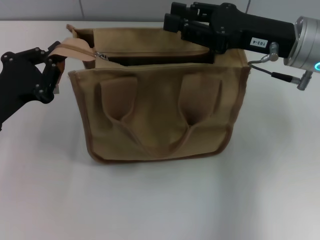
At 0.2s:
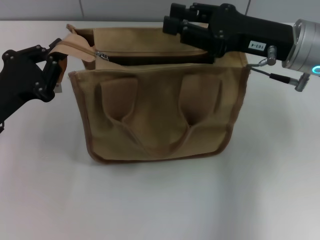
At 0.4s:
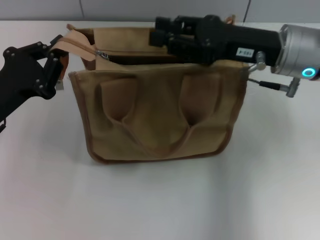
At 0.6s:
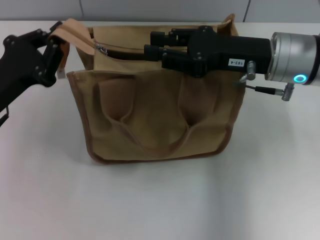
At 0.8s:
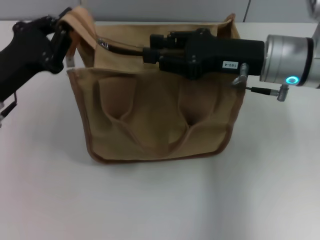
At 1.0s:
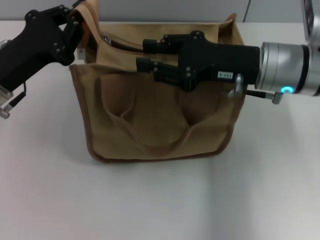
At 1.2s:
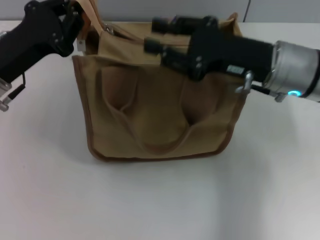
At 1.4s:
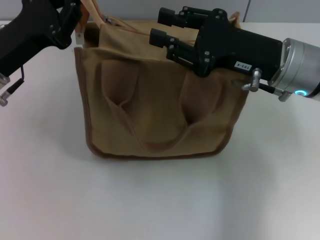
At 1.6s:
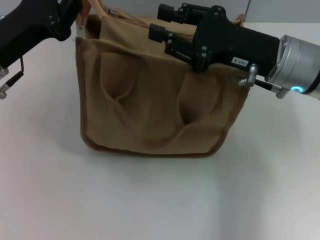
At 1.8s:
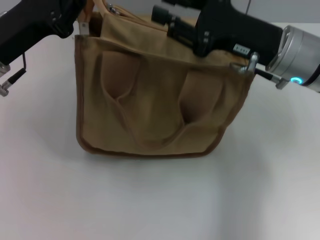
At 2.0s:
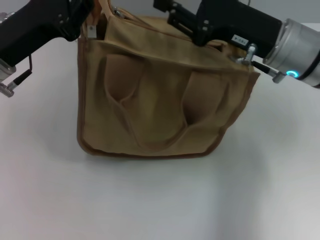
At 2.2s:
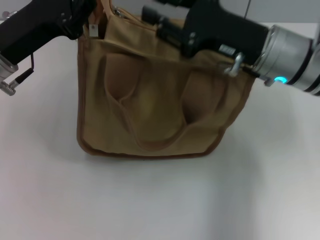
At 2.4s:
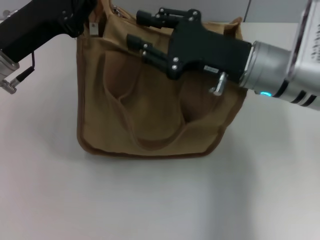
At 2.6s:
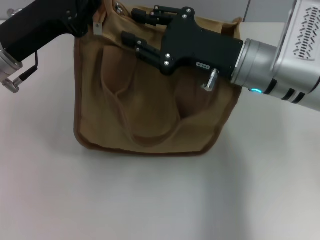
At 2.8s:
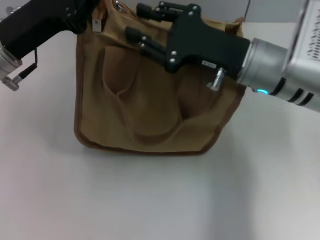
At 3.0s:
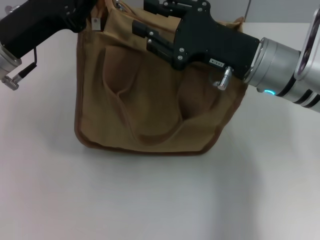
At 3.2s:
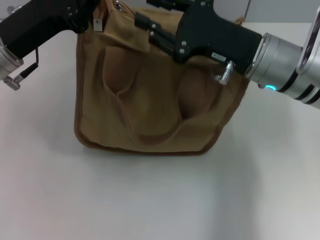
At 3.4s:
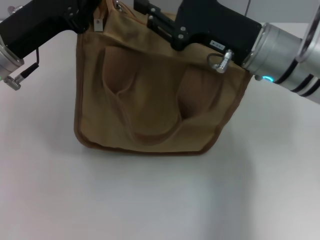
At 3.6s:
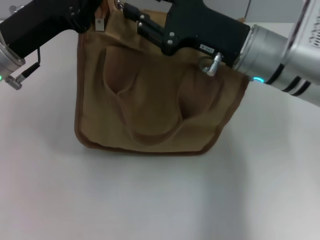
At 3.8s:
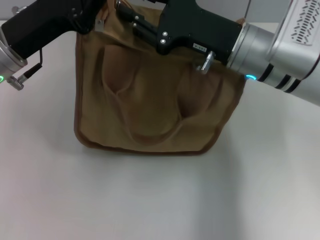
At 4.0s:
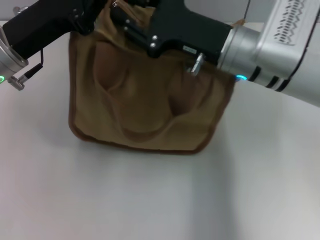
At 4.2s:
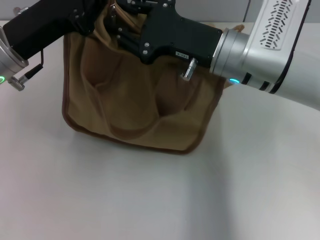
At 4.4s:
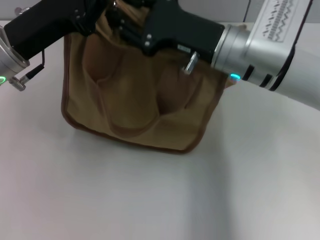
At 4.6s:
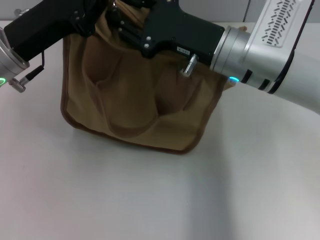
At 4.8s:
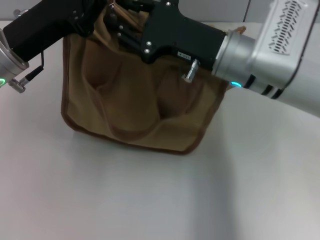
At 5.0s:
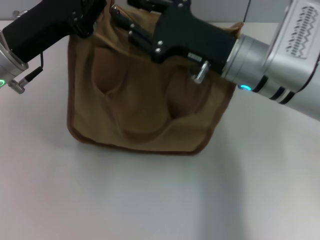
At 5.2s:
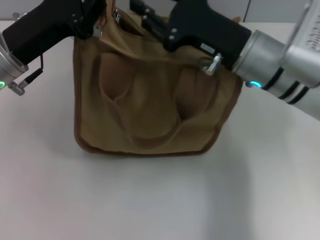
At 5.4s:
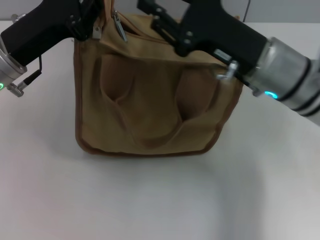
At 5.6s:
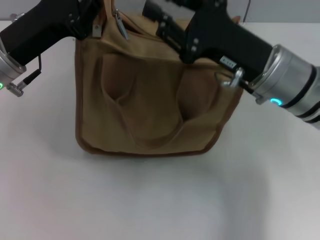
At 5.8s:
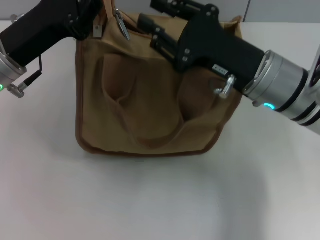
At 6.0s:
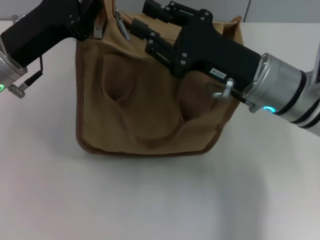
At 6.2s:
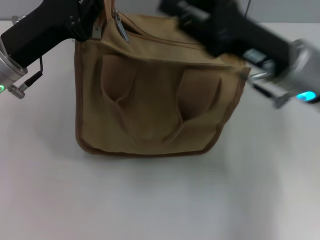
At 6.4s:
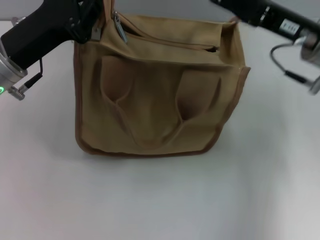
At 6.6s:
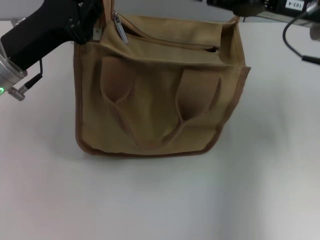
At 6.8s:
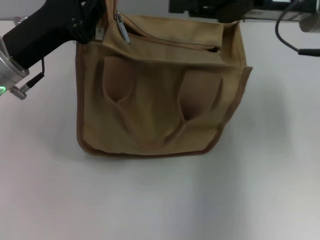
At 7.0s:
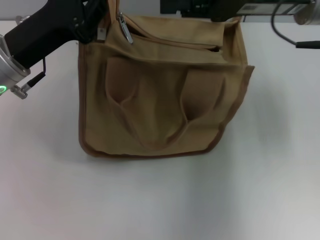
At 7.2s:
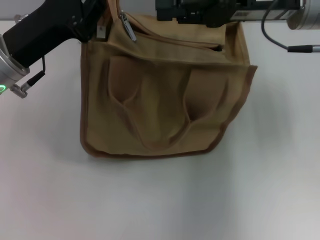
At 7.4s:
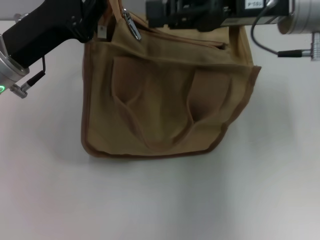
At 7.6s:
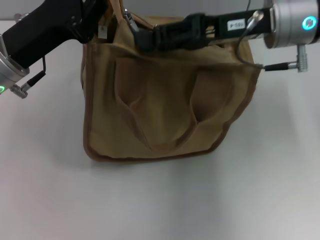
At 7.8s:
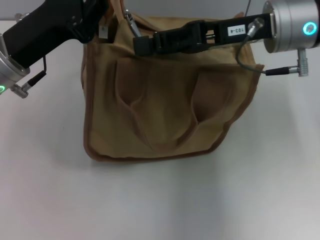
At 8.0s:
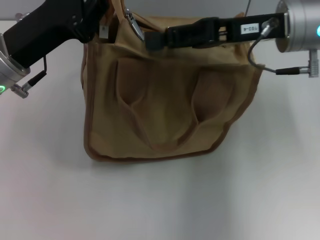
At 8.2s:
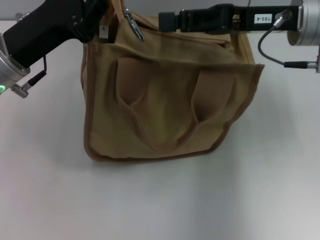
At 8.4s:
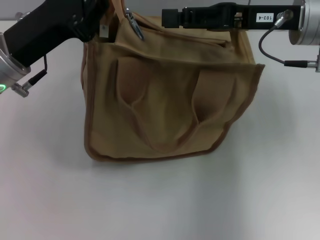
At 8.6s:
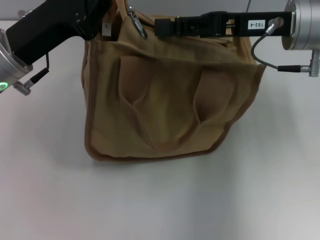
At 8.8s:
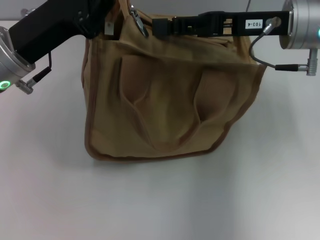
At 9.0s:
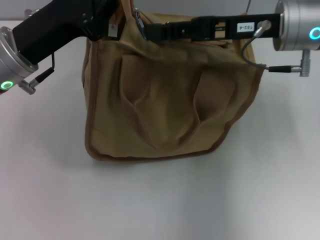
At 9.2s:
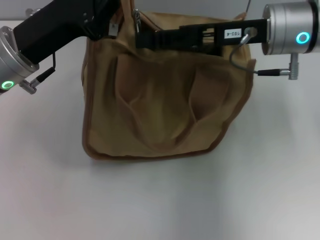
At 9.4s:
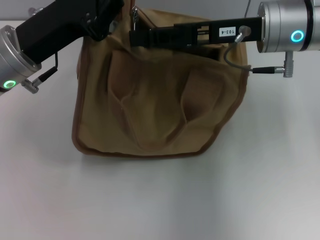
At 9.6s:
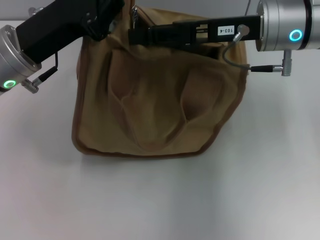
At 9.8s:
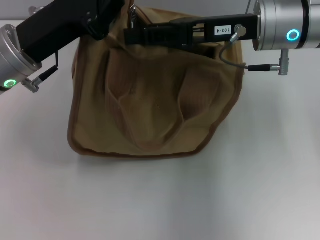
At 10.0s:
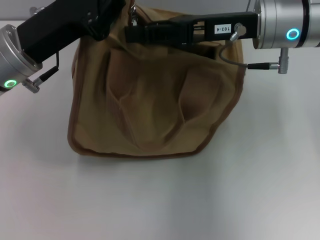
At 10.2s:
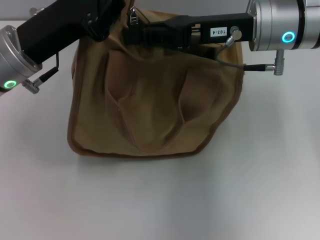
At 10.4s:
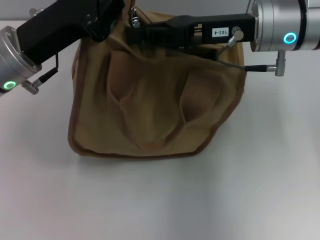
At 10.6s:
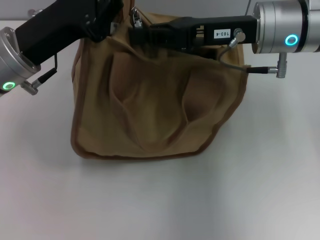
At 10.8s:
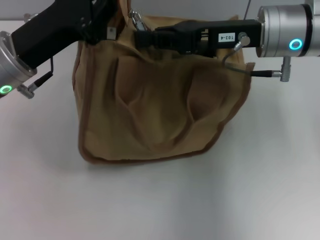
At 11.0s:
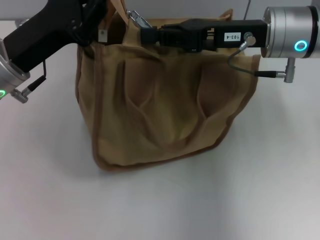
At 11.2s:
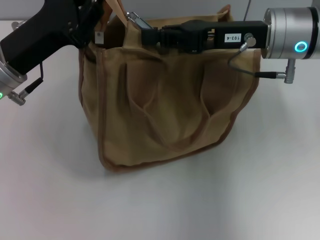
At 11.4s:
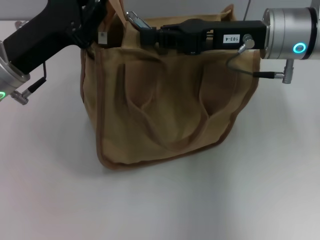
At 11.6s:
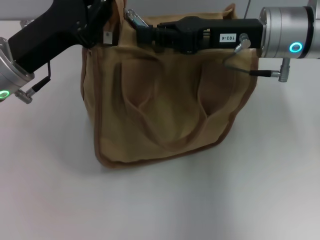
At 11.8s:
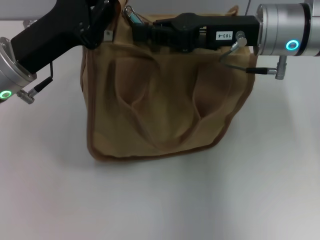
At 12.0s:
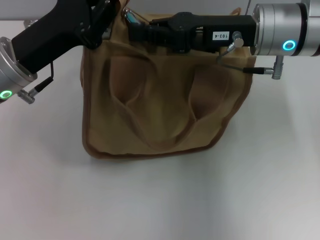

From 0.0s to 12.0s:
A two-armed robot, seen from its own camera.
From 0.0s to 1.6s: The left gripper shifts some 10 cm upward and forward.
From 1.6s to 3.0s: The grippers move only a little.
From 4.4s to 6.0s: The right gripper ends up approximately 5 cm from where it was.
From 6.0s to 7.6s: The right gripper goes some 10 cm upward and forward.
From 7.6s to 9.0s: The grippers stay close to where they were, moving slightly.
From 9.0s to 10.4s: The right gripper closes its fingers.
From 10.4s to 12.0s: The grippers stay close to where they were, moving slightly.

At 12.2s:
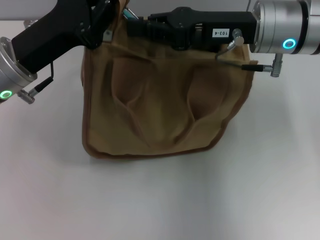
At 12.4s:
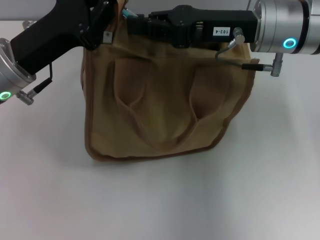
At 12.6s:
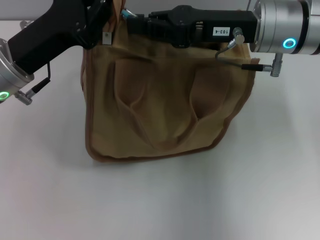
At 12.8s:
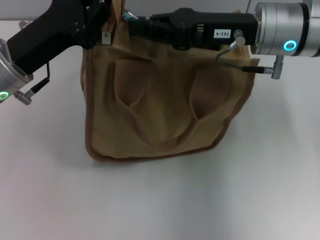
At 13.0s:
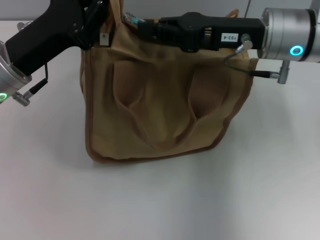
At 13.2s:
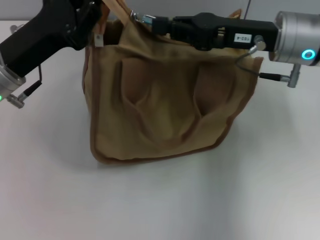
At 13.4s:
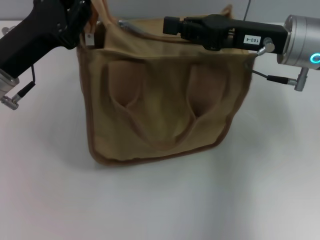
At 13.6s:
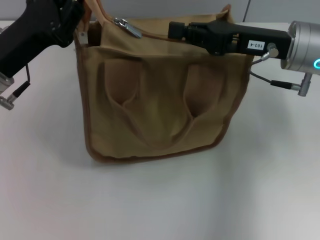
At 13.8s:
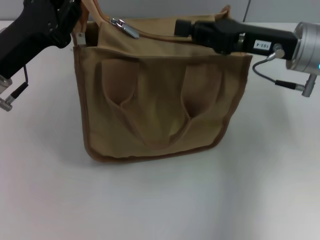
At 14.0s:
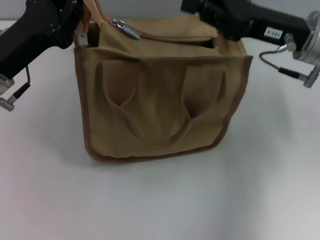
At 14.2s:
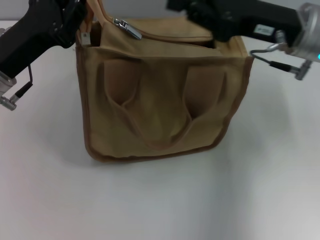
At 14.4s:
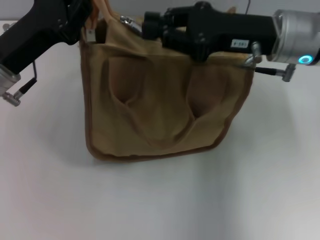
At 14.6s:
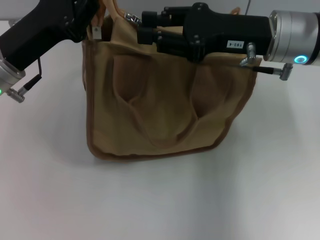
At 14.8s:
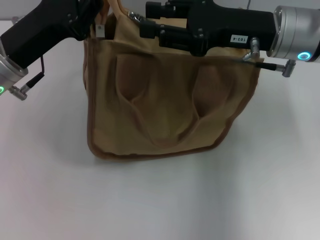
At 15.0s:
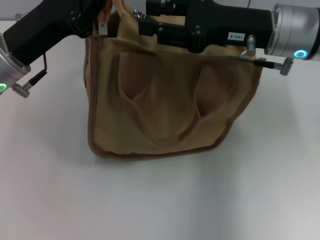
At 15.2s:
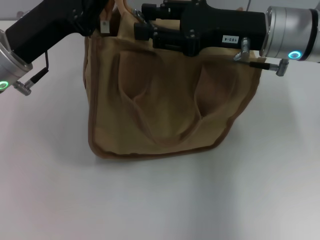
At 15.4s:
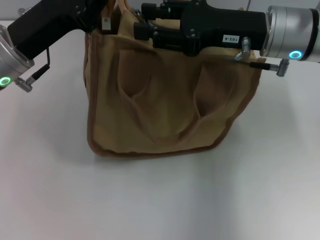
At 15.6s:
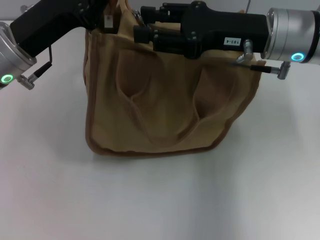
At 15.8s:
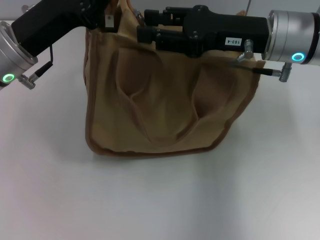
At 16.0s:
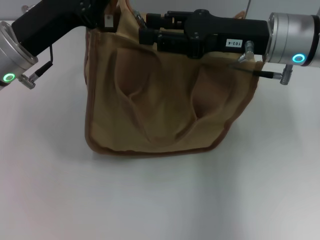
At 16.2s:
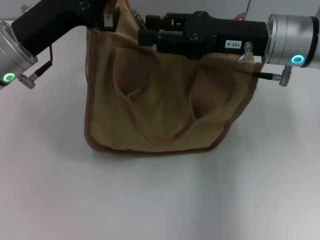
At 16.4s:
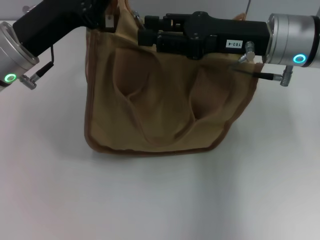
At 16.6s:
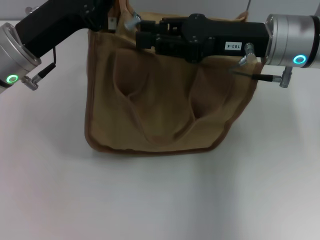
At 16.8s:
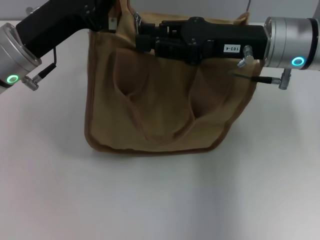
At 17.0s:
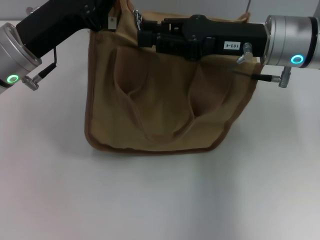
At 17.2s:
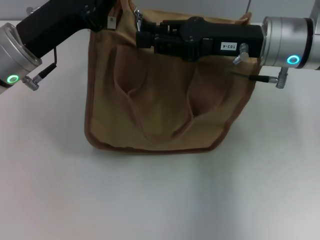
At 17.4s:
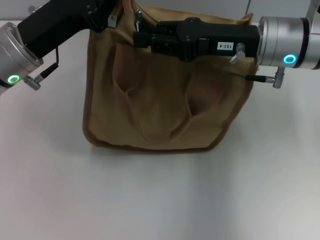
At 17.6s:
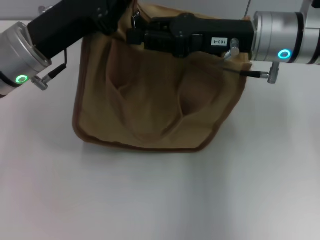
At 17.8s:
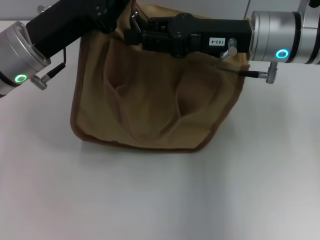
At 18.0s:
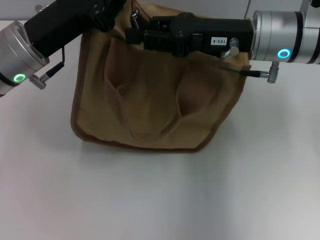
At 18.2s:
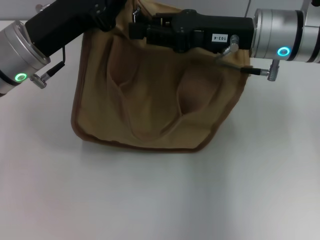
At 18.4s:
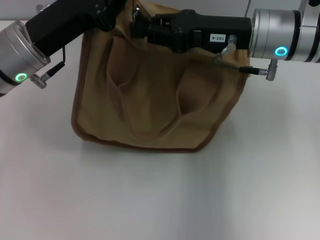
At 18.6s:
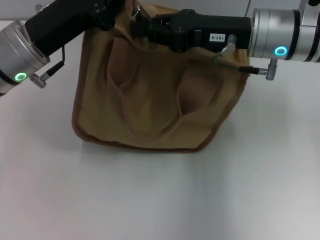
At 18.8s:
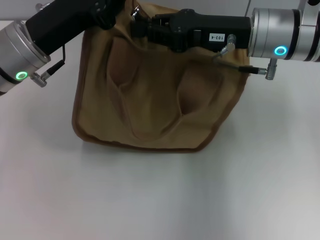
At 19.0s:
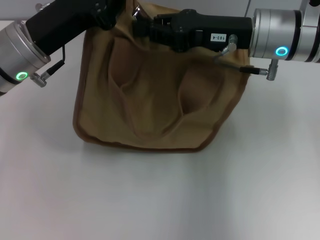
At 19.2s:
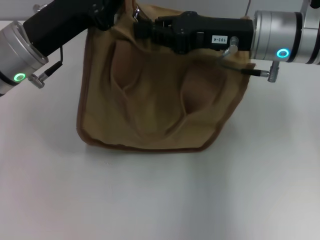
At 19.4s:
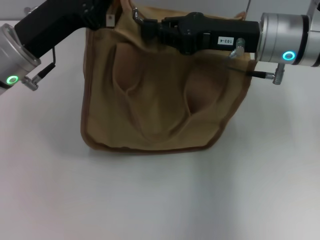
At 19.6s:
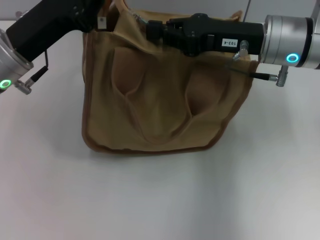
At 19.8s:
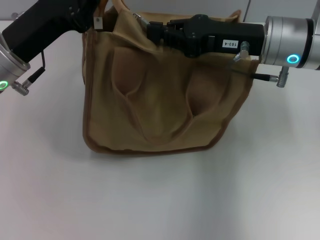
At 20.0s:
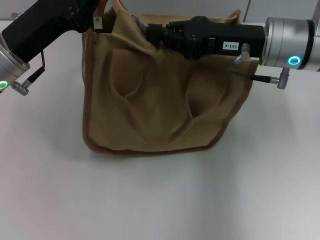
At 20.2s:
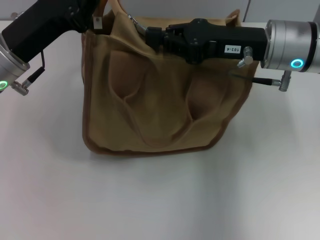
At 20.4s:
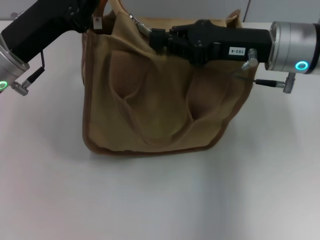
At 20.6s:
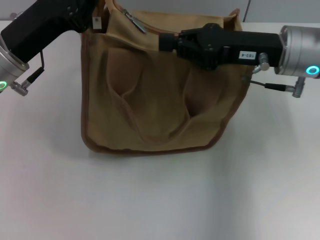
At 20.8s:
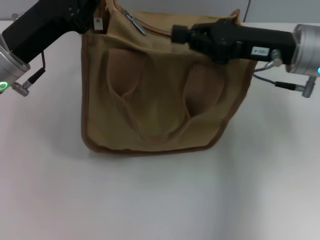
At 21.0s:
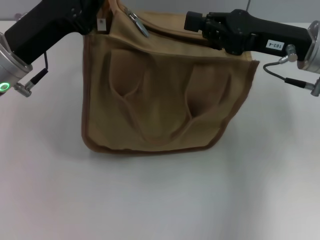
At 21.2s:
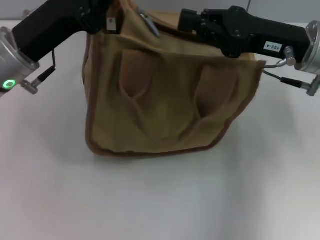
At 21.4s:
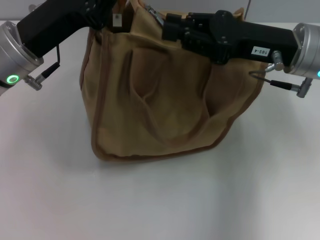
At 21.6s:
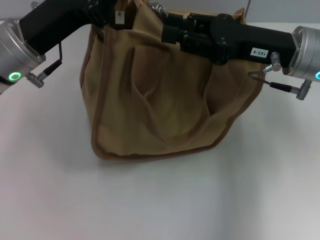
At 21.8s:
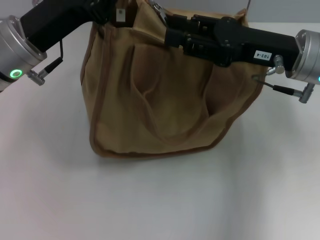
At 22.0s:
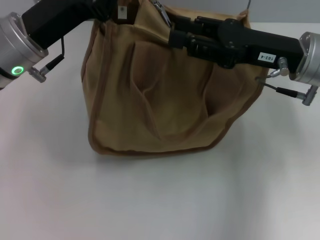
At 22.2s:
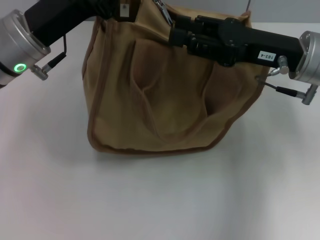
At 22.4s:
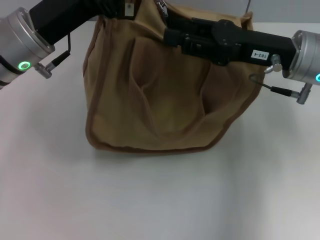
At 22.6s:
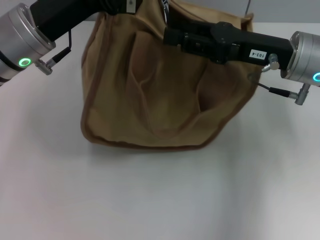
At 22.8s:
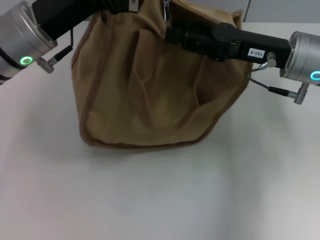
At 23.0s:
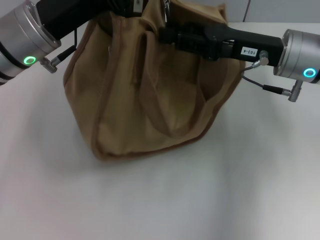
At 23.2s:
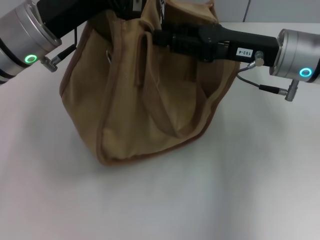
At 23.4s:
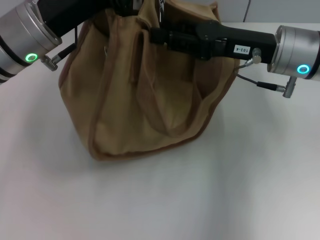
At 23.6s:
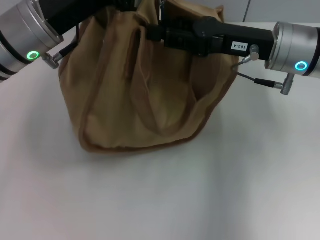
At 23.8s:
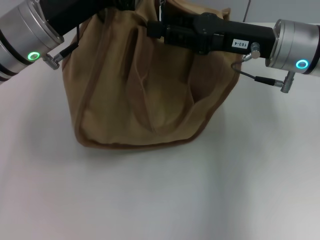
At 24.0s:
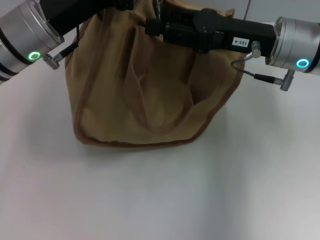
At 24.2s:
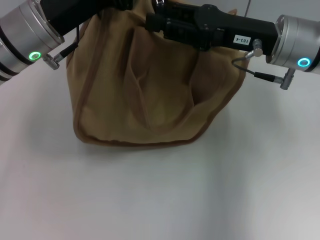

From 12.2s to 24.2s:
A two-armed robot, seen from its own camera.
From 12.2s to 13.8s: The right gripper travels to the right by roughly 5 cm.
From 13.8s to 15.2s: The right gripper opens its fingers.
From 15.2s to 18.2s: The grippers move only a little.
From 18.2s to 19.8s: The right gripper closes up.
From 19.8s to 21.2s: There are only small adjustments of the grippers.
From 21.2s to 22.6s: The right gripper opens its fingers.
From 22.6s to 24.2s: The grippers make only small movements.
